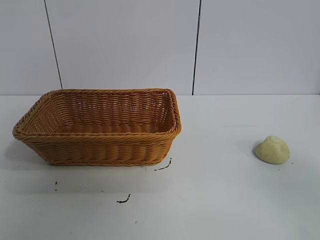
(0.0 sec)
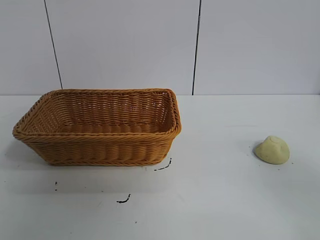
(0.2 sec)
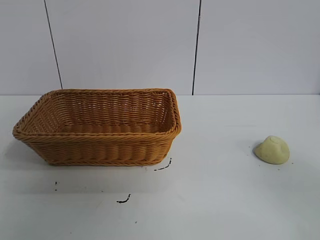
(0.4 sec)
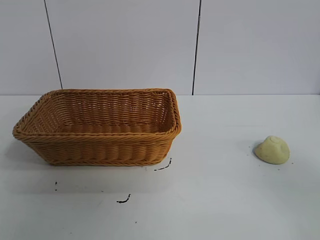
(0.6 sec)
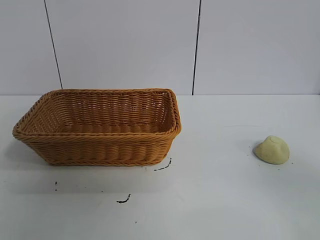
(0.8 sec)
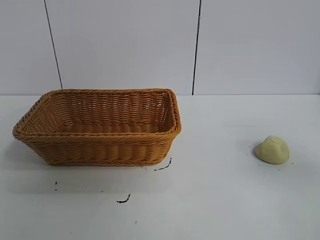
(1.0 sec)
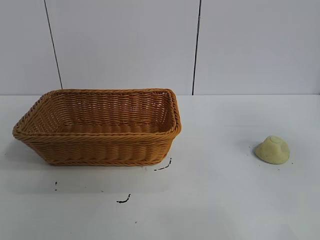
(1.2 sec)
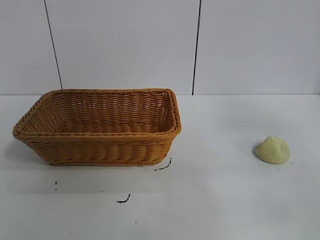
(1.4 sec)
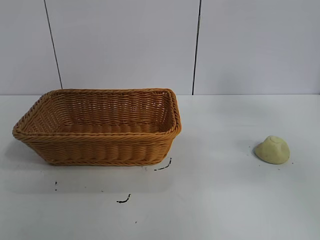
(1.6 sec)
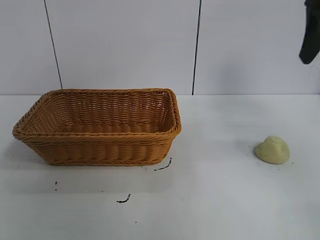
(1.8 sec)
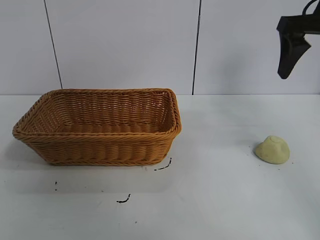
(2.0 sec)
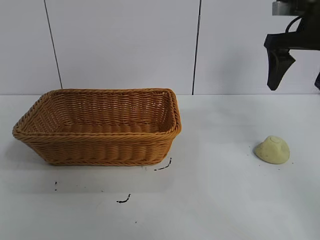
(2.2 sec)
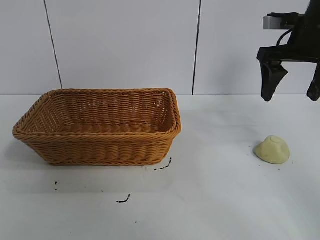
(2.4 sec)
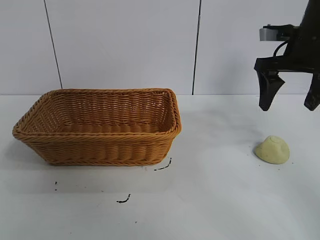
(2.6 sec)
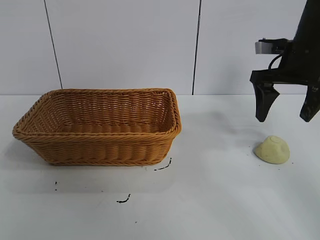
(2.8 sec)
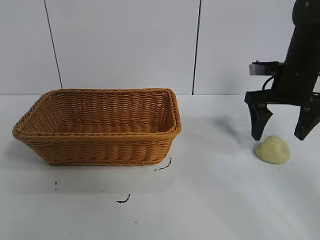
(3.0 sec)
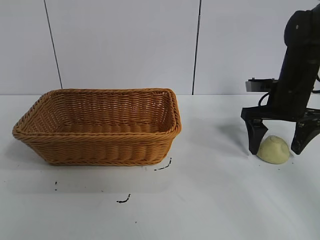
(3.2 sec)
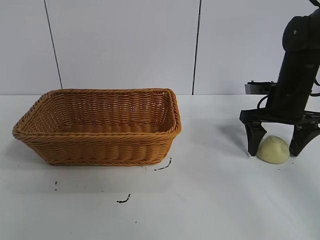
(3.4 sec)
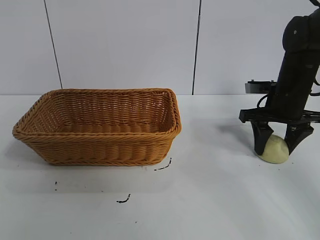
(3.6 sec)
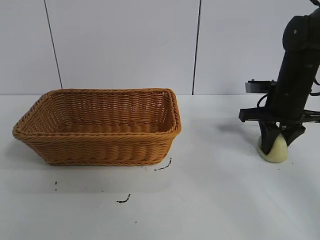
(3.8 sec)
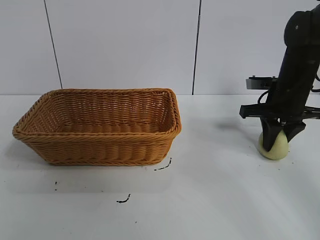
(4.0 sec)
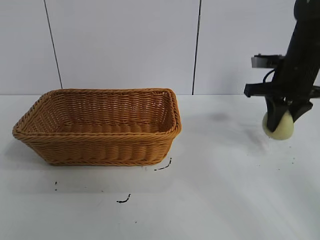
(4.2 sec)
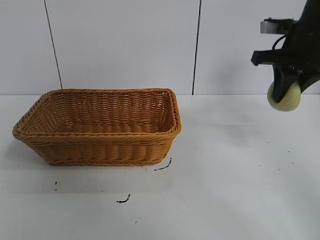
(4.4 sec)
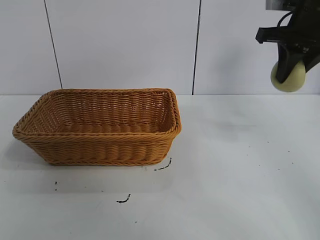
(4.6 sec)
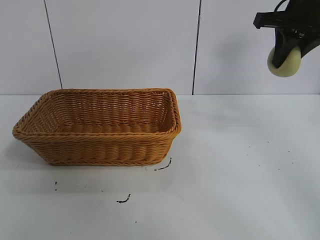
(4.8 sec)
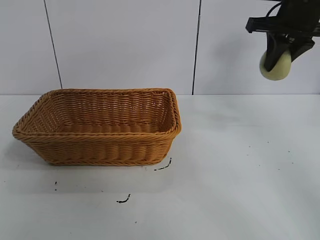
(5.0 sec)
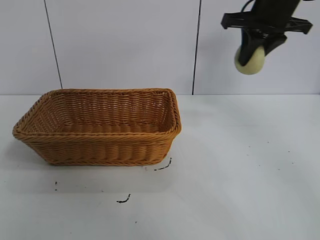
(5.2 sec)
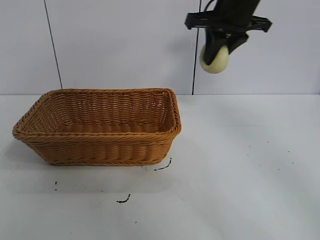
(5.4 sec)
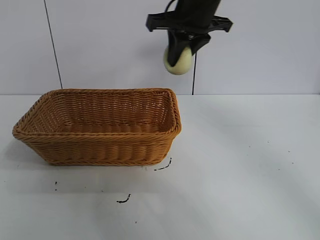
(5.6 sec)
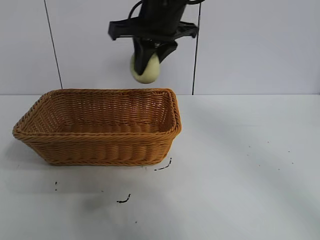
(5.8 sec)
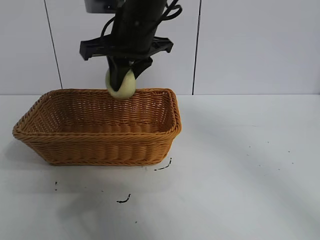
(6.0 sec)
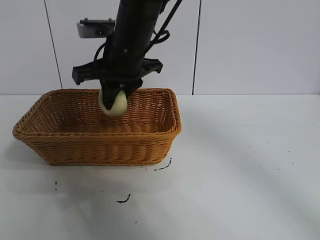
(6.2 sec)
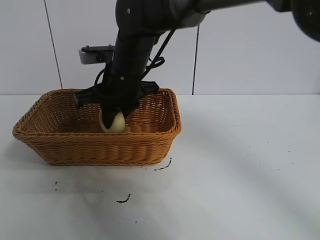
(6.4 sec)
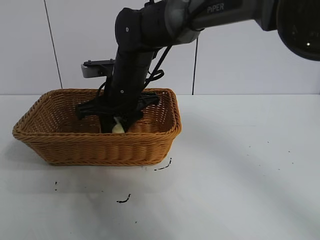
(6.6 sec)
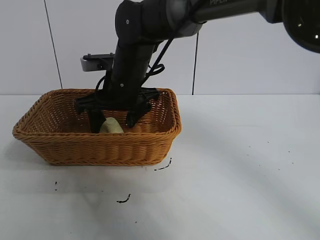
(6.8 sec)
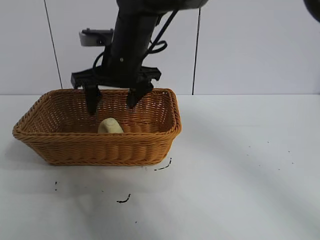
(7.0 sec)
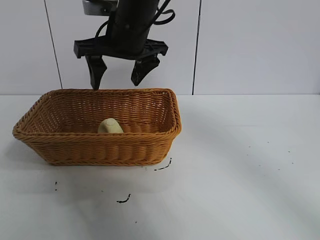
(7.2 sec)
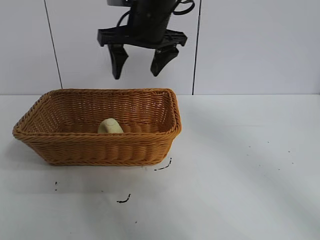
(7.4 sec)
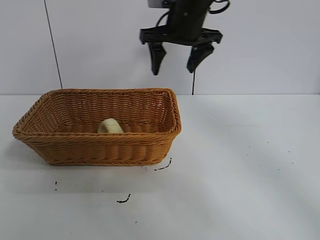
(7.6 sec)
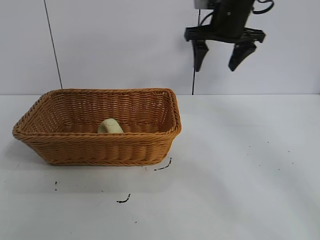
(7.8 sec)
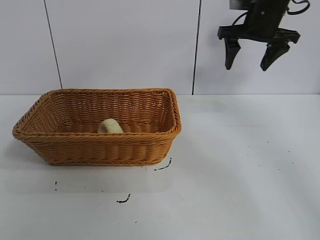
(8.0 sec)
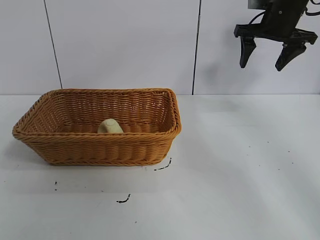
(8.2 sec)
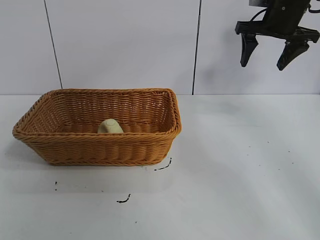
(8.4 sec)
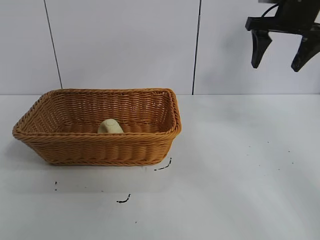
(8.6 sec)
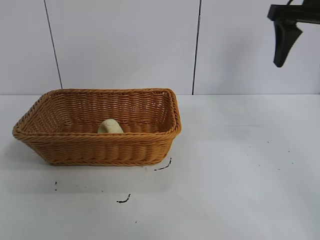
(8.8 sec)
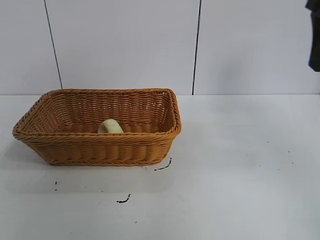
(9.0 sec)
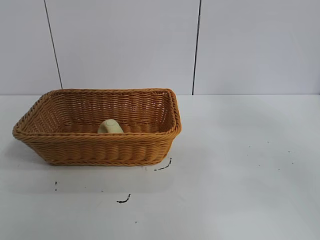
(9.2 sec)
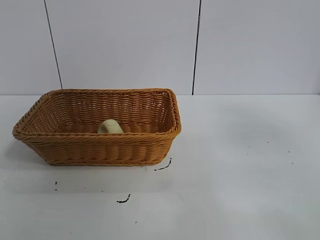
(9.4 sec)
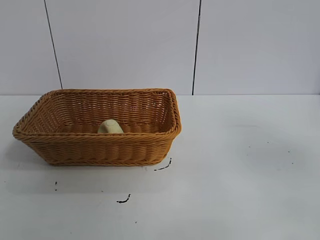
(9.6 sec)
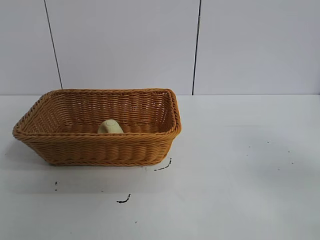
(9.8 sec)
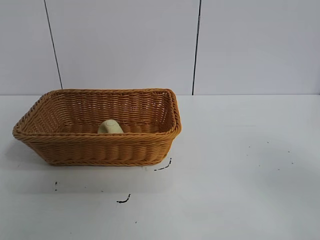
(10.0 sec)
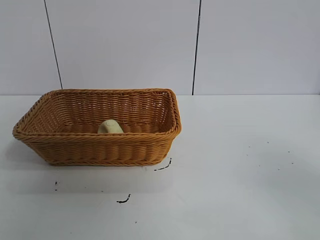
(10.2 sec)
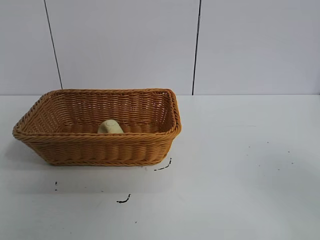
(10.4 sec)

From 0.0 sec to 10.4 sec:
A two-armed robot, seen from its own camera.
Task of the whole recording: pick up the egg yolk pastry and put it into the basket.
Step, from 0.8 sec to 3.8 sec: Grasp egg yolk pastry with right gripper.
Step, from 4.0 sec to 6.8 sec: Place the egg yolk pastry in the basket with right gripper.
